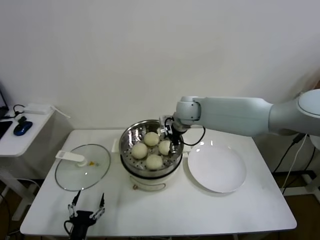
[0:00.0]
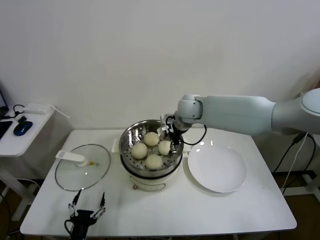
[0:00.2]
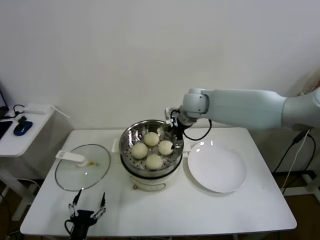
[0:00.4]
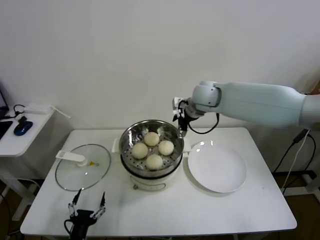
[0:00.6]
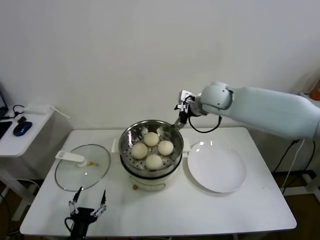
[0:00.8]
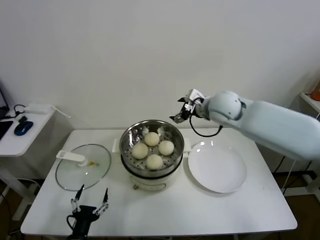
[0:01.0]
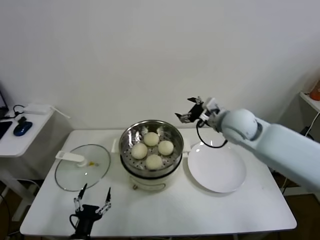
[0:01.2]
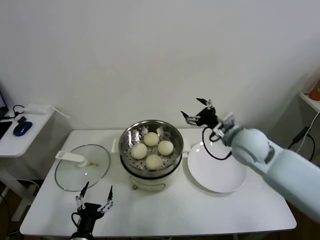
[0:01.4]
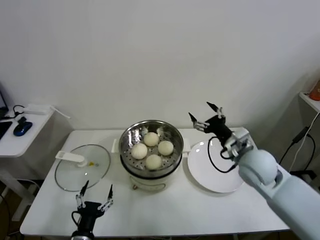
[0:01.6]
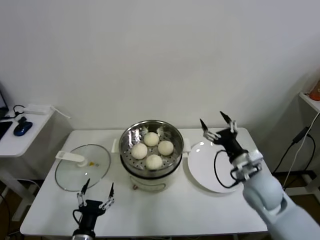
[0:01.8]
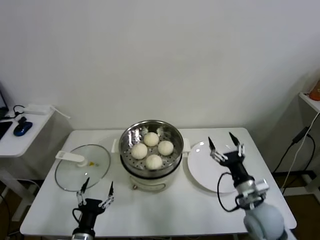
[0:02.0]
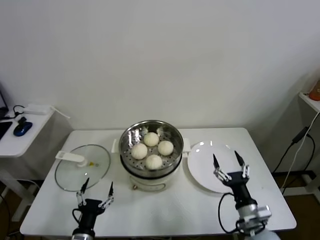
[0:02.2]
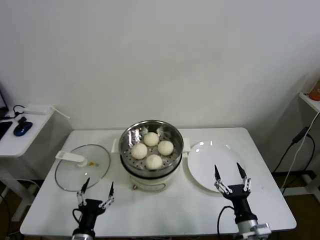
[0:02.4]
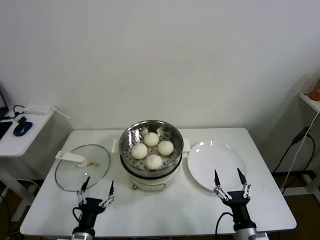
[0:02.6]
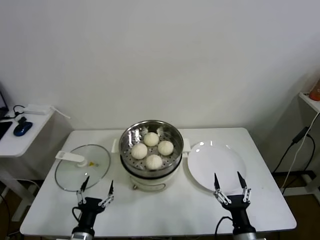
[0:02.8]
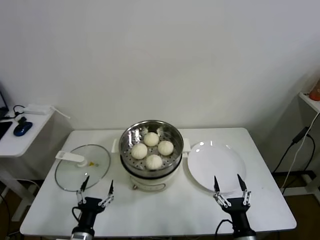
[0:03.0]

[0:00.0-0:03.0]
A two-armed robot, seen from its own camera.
Task of the whole recording: take steamed baozi put them in steamer.
0:00.0 to 0:01.6: The right gripper is displaced backward and to the right by some 25 cm.
0:01.6 to 0:03.0: The right gripper heads backward and downward, covering about 30 cm.

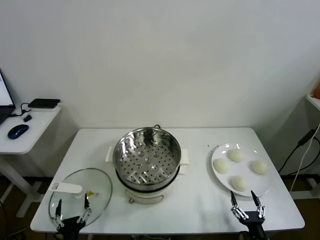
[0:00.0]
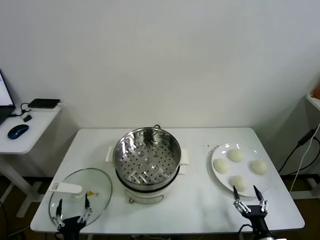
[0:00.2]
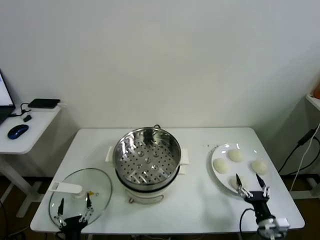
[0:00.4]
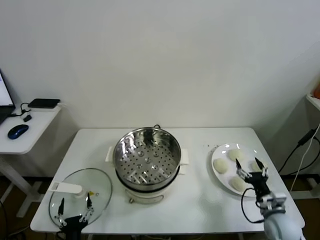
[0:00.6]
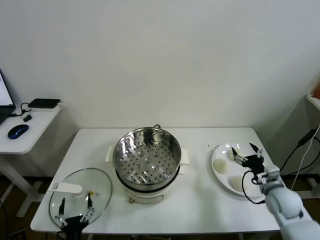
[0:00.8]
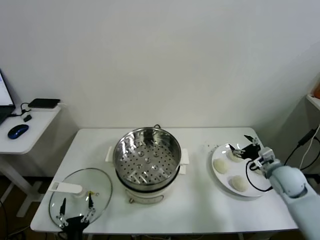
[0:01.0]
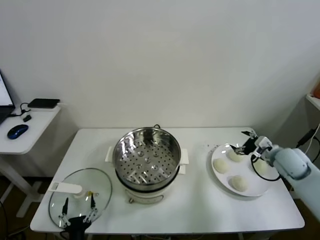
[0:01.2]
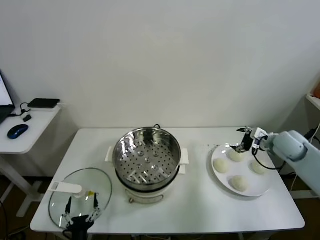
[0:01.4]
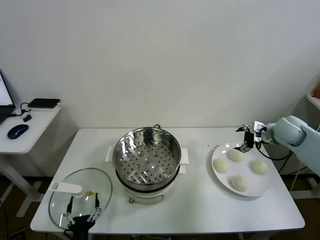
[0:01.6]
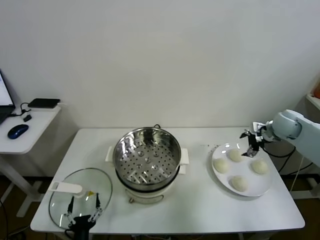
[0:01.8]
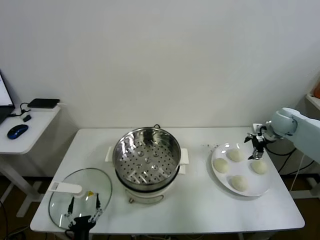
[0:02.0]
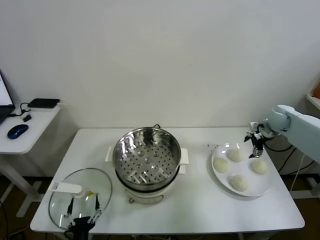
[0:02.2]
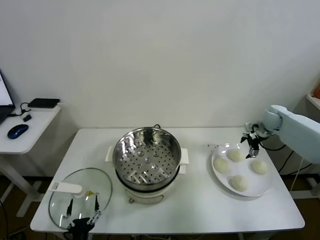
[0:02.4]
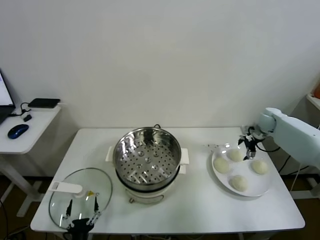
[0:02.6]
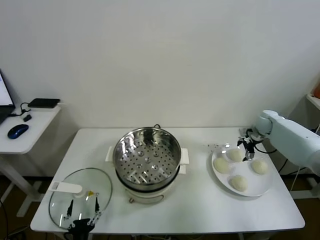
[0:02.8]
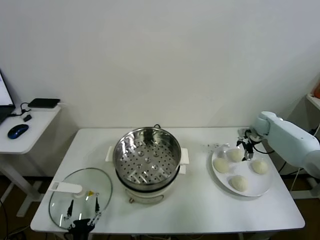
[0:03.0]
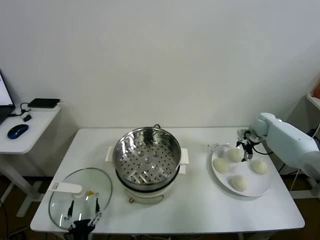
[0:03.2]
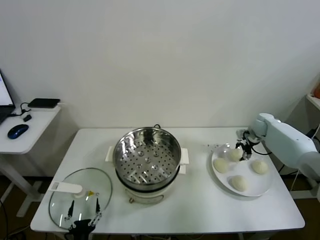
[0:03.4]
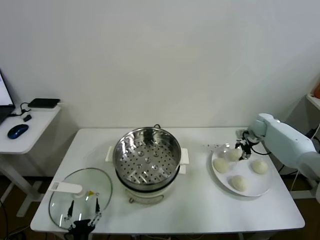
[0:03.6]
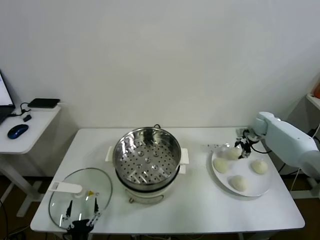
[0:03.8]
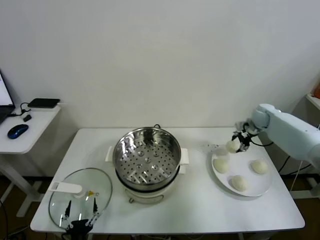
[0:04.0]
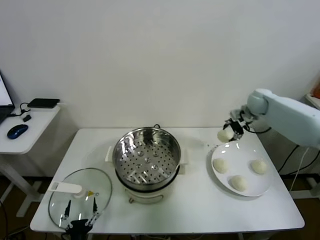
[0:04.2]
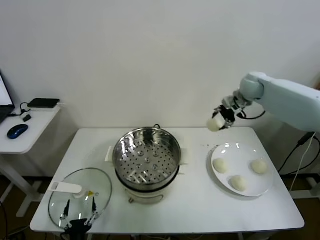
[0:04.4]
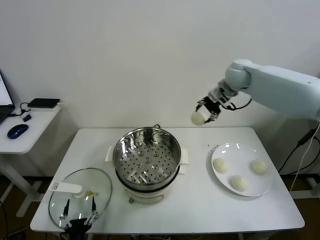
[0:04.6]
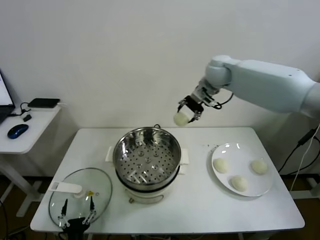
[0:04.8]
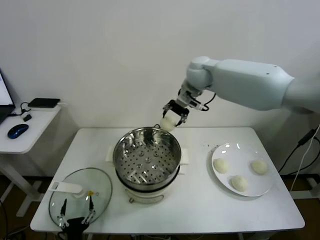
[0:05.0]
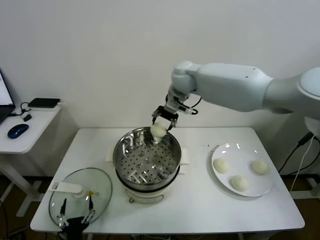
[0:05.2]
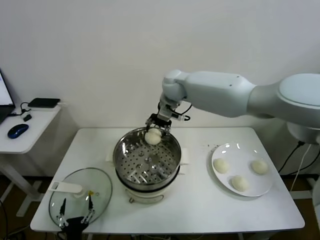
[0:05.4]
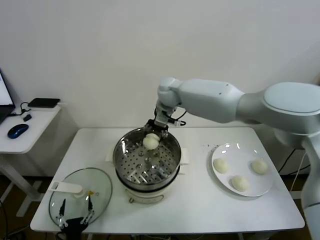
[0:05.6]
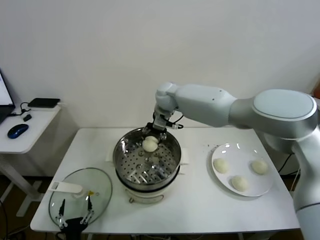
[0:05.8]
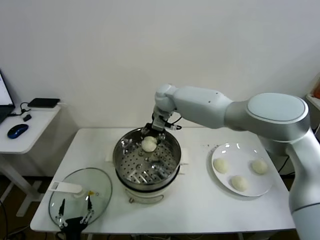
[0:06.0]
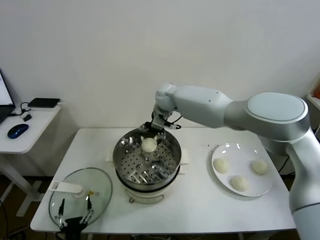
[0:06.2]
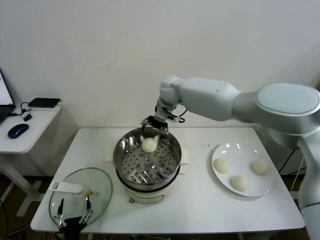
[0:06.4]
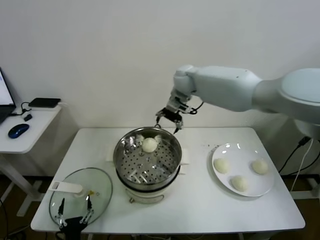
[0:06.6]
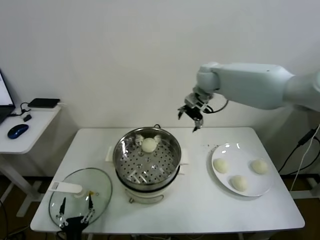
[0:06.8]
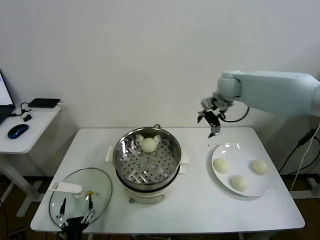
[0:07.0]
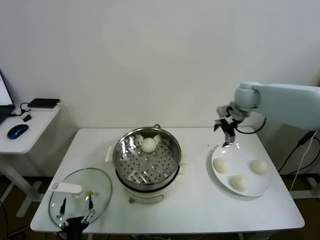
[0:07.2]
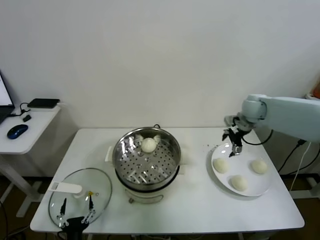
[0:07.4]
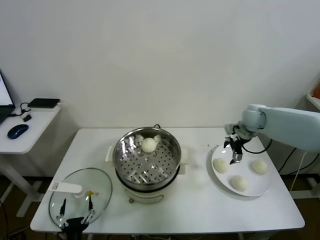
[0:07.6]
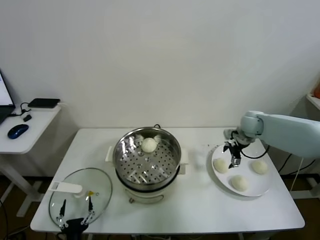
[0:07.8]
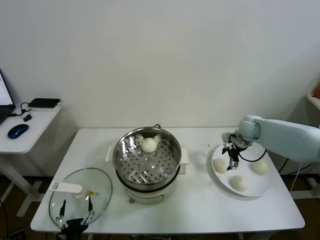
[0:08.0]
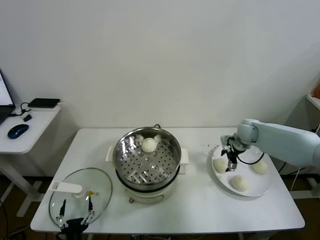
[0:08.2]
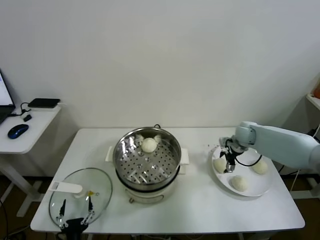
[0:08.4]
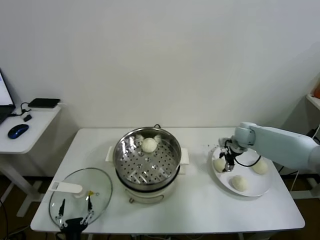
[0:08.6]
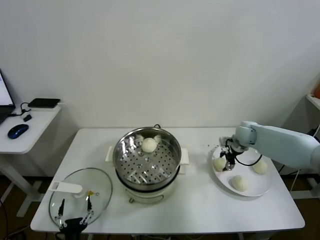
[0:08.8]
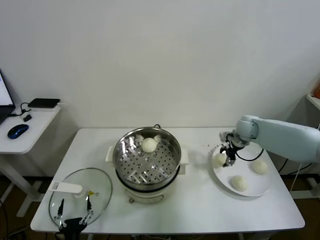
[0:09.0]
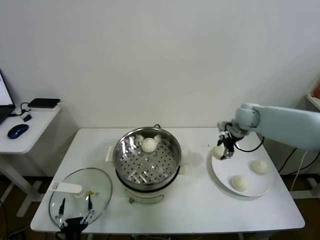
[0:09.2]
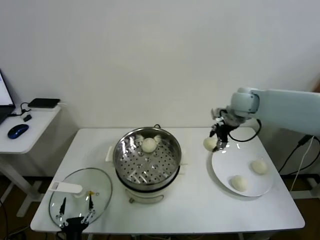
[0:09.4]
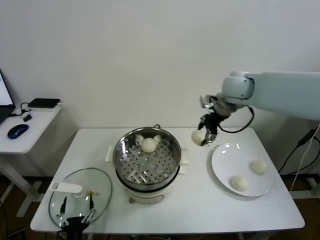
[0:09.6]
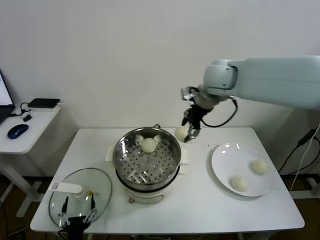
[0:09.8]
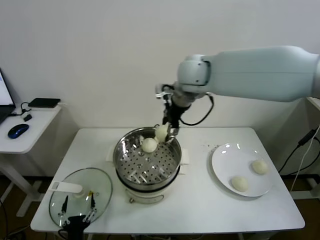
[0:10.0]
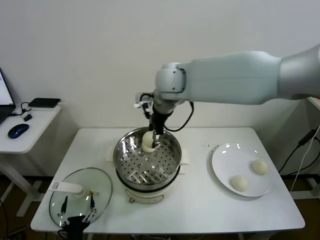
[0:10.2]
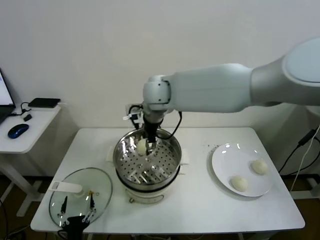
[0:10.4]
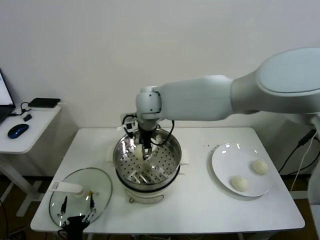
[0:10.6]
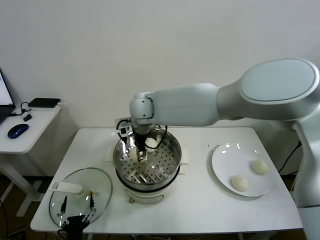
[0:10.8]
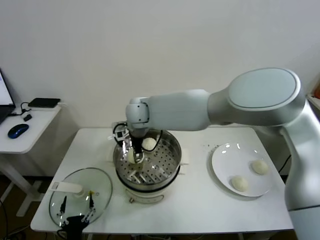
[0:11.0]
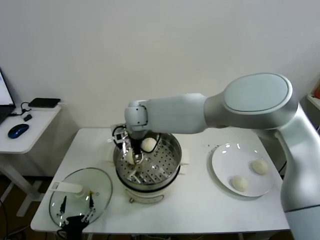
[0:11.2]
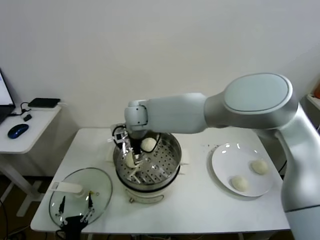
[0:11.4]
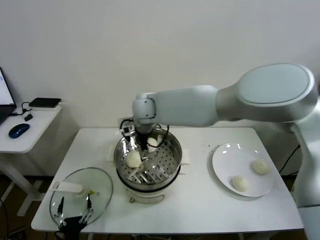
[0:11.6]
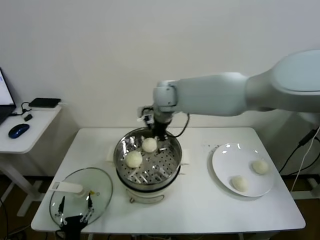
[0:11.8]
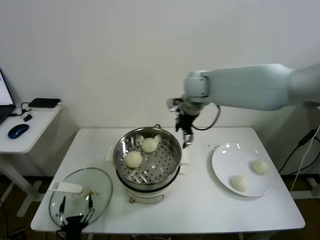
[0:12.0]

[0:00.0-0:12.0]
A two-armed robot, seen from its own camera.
Task of the whole recording: take steamed baozi put them in steamer.
Step, 0:00.0 to 0:03.8: Grasp the baozi in the plate with right gripper.
Step, 0:04.0 to 0:06.2: Place the baozi on the steamer with right gripper.
Step, 0:06.4 to 0:08.6: Grasp the baozi in the plate with right gripper.
Step, 0:08.8 to 0:11.4: Place the baozi on the steamer with right gripper.
0:01.6 to 0:03.0: The right gripper goes roughly 15 cm forward and downward.
0:03.0 to 0:04.4: The right gripper is displaced upward and to the left by approximately 25 cm, and closes up.
0:04.4 to 0:06.0: The right gripper travels to the left by roughly 25 cm.
0:06.0 to 0:07.6: The right gripper heads to the right, covering roughly 35 cm.
0:07.6 to 0:09.0: The right gripper reaches some 10 cm downward, then returns, and closes.
0:09.0 to 0:10.4: The right gripper shifts about 40 cm to the left and upward.
0:10.4 to 0:12.0: The right gripper is displaced to the right by roughly 15 cm, and opens up.

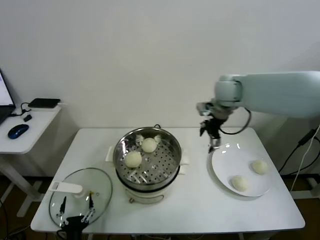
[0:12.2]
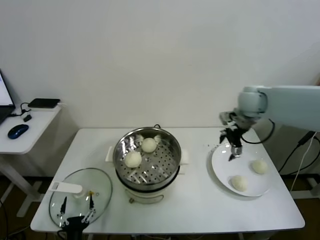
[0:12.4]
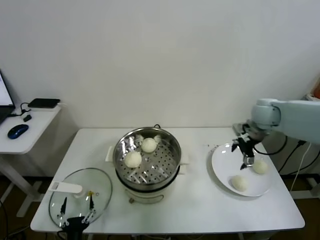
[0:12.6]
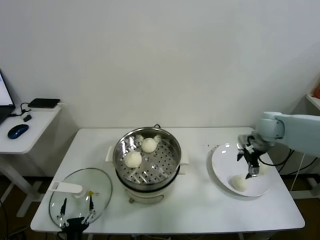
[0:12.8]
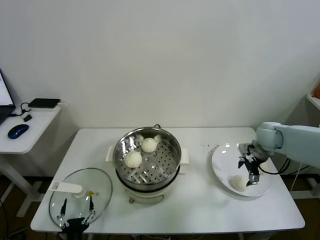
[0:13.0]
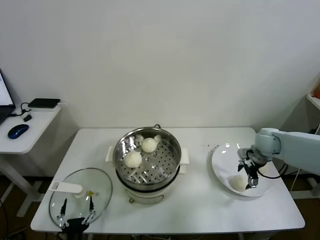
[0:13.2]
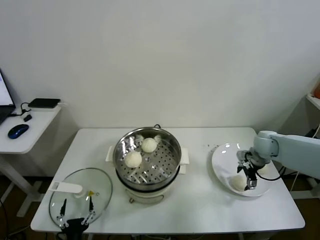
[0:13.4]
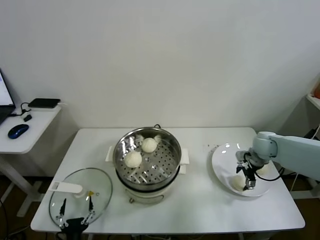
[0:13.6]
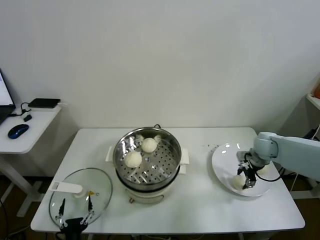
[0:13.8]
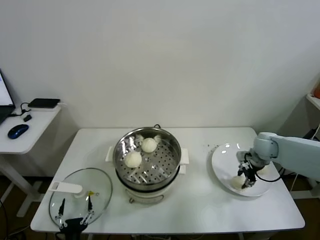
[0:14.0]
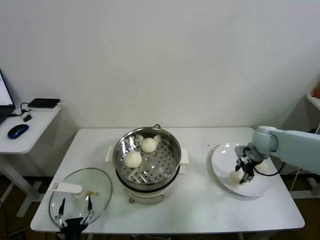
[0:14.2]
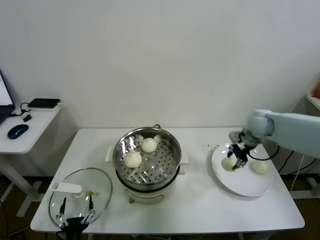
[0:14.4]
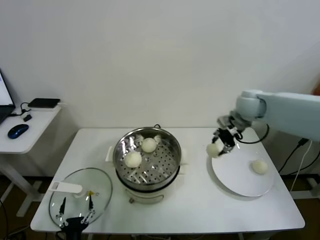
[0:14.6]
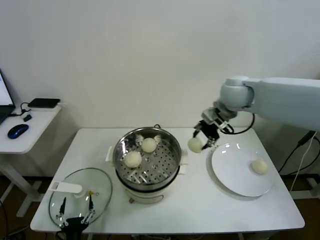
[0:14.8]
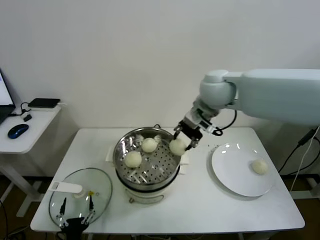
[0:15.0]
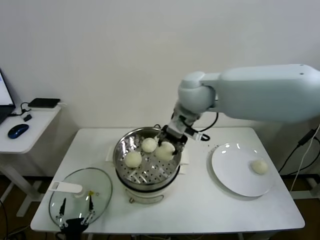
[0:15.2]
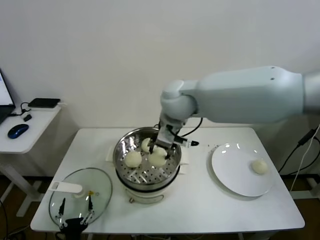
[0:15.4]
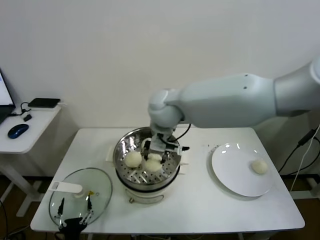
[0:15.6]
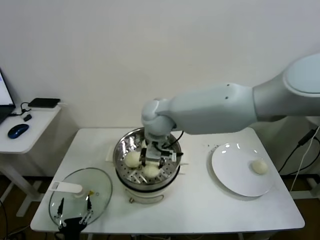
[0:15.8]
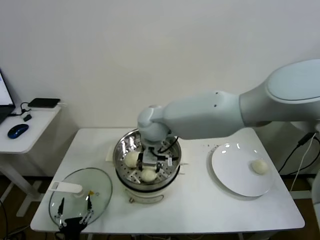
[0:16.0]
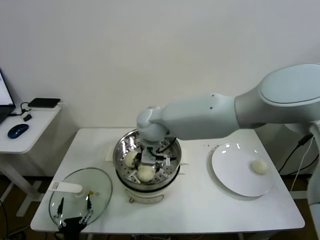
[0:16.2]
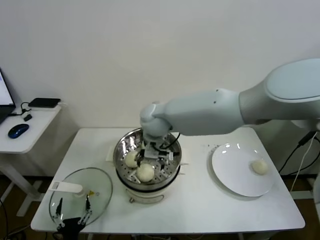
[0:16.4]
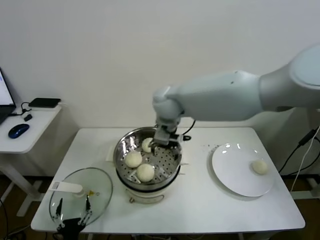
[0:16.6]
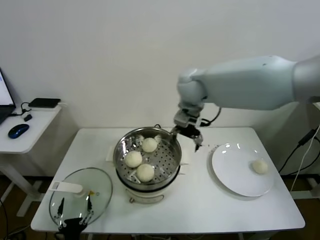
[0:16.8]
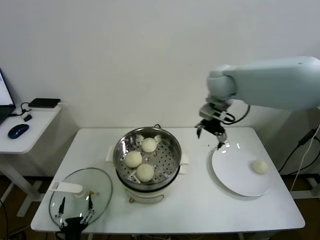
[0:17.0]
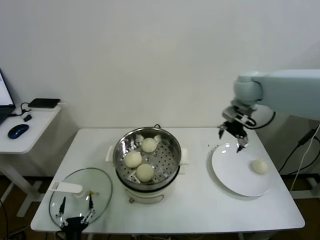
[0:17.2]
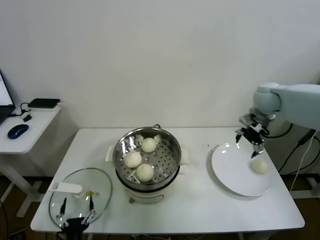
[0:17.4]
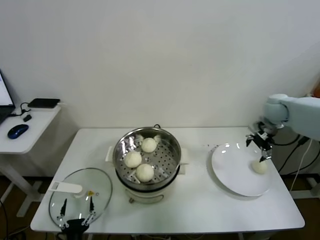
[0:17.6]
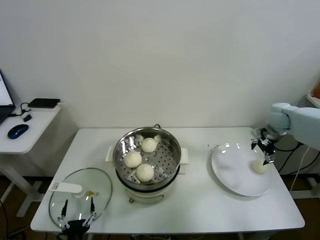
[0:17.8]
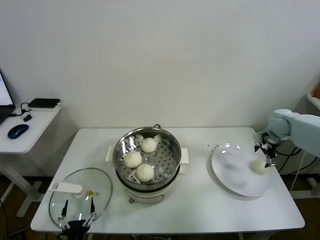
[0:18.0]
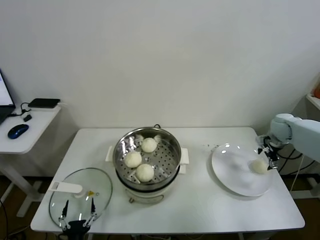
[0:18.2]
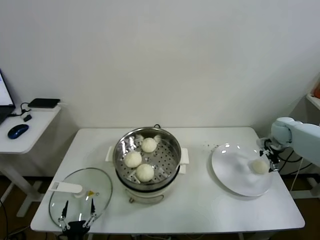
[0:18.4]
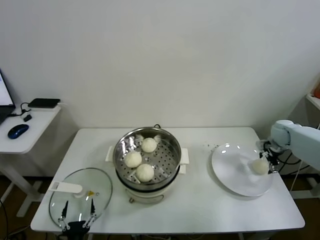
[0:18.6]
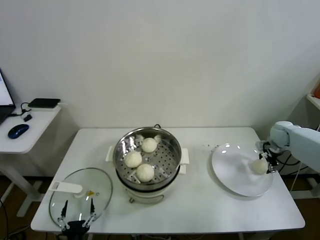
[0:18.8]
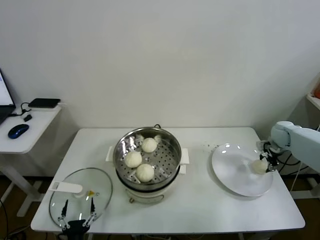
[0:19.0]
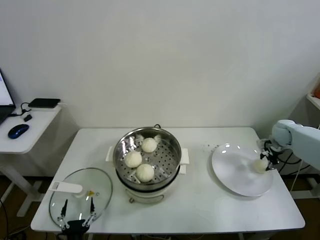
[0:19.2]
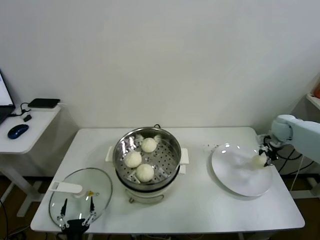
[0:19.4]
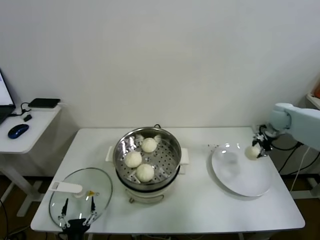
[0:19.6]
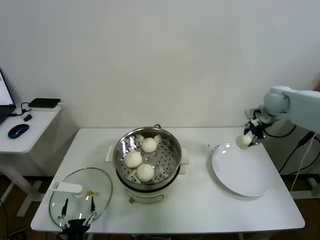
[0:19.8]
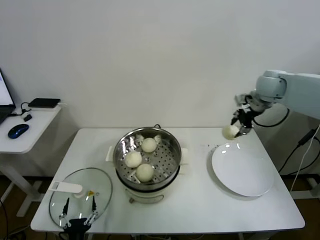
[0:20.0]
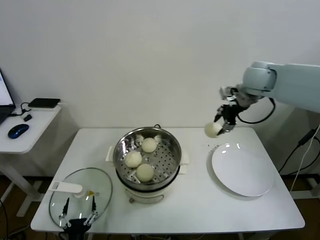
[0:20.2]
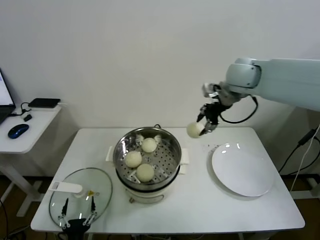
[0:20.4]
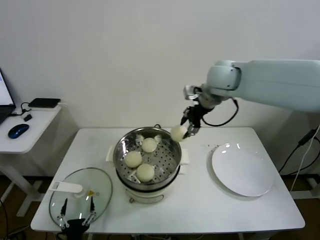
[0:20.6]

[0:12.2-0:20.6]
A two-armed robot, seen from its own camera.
Task of the whole recording: take steamed baozi put them in steamer.
Step, 0:12.2 to 0:14.0: Grasp the baozi in the plate with right gripper.
Step, 0:14.2 to 0:16.2: Place the baozi on the steamer with right gripper.
Step, 0:16.6 to 0:19.2: Grasp the baozi in the plate with right gripper.
0:12.2 to 0:13.6: The right gripper shifts about 25 cm downward and to the right.
0:13.6 to 0:15.0: The right gripper goes about 35 cm upward and to the left, and closes its fingers.
0:15.0 to 0:16.4: The right gripper is displaced to the left and downward by approximately 20 cm, and opens its fingers.
0:16.4 to 0:17.8: The right gripper shifts about 40 cm to the right.
0:17.8 to 0:19.2: The right gripper moves downward and to the right, some 10 cm, and closes its fingers.
0:19.2 to 0:20.6: The right gripper moves to the left and upward, some 40 cm.
